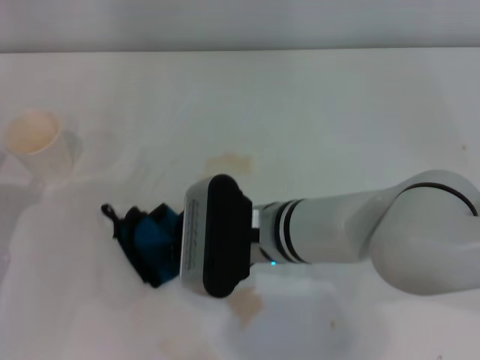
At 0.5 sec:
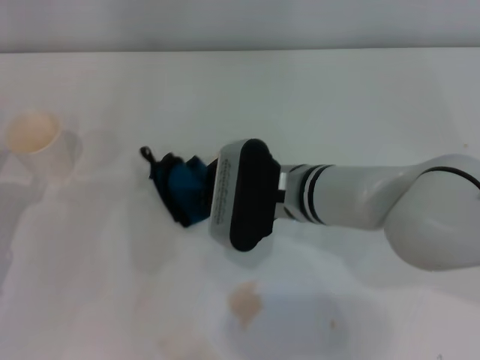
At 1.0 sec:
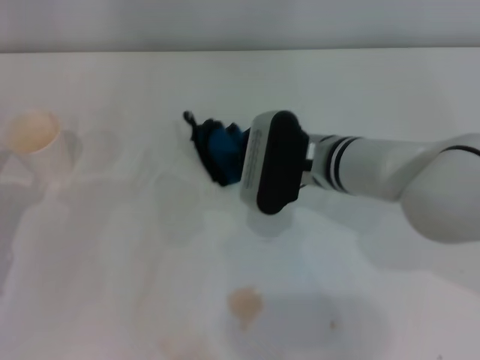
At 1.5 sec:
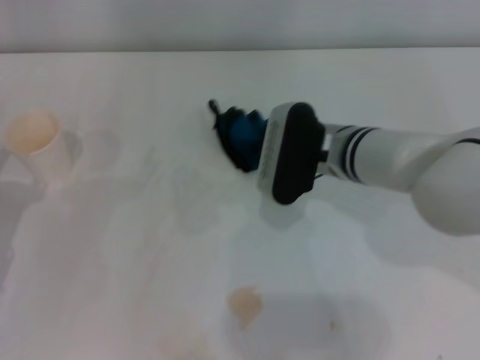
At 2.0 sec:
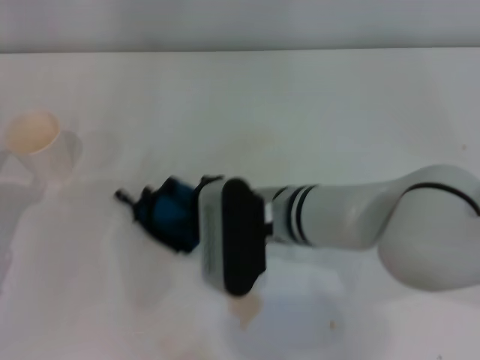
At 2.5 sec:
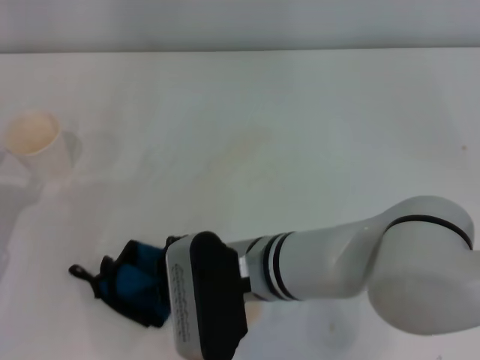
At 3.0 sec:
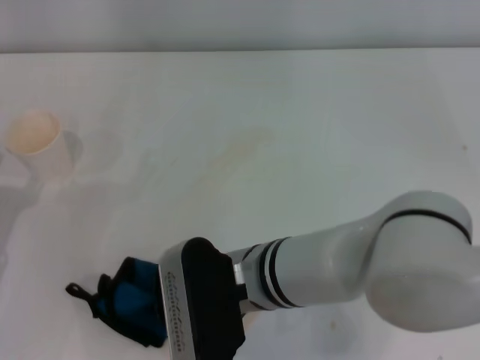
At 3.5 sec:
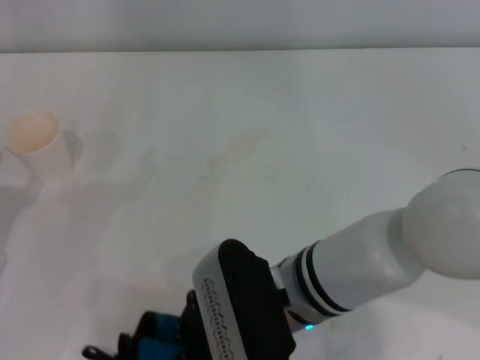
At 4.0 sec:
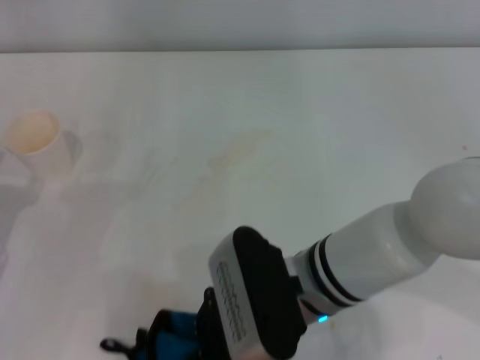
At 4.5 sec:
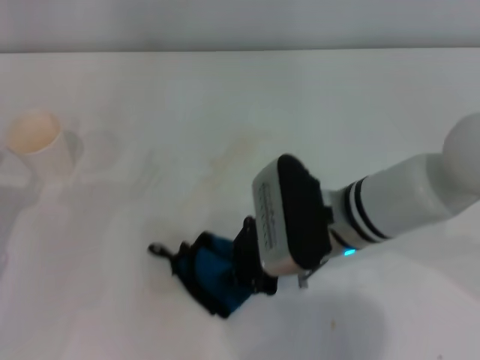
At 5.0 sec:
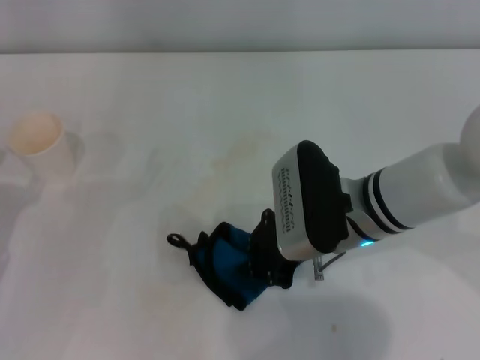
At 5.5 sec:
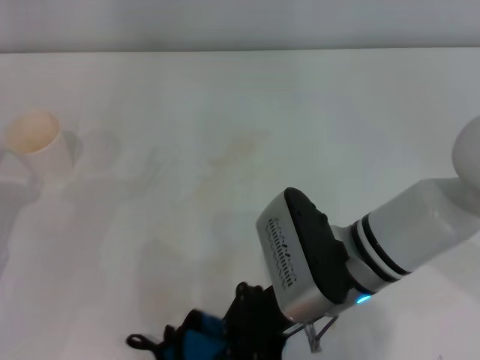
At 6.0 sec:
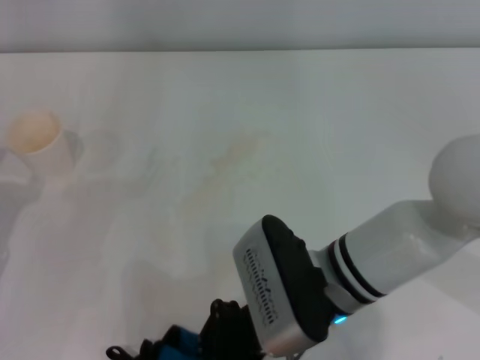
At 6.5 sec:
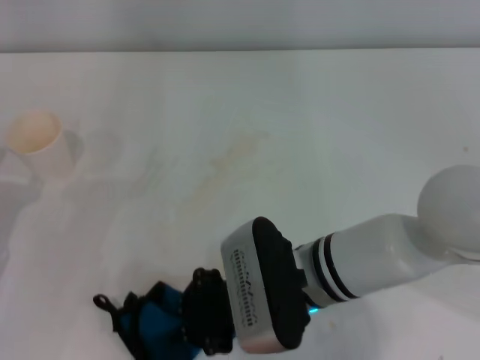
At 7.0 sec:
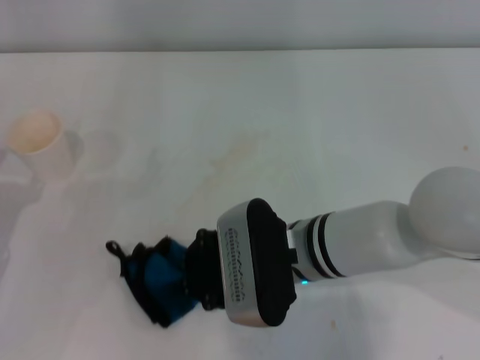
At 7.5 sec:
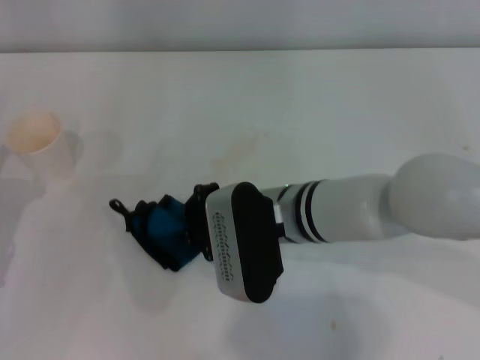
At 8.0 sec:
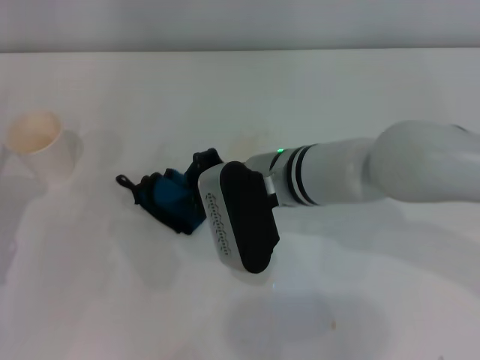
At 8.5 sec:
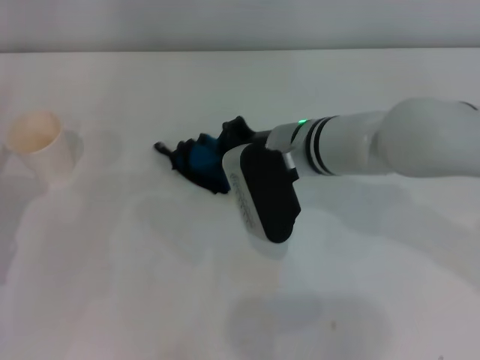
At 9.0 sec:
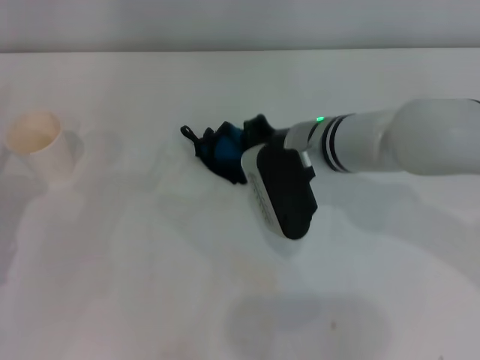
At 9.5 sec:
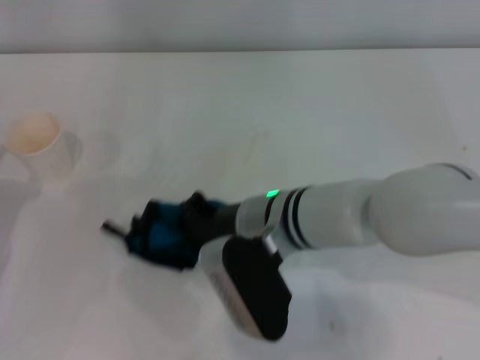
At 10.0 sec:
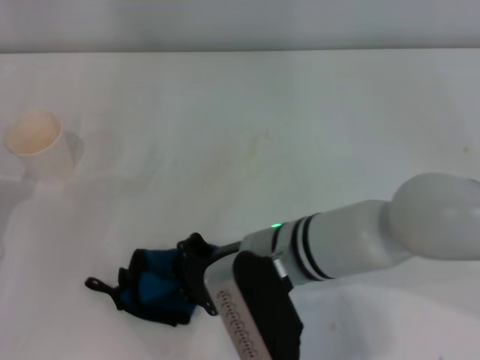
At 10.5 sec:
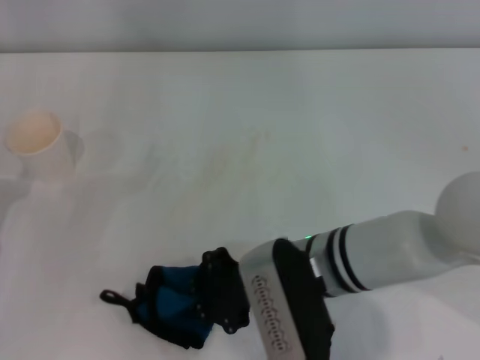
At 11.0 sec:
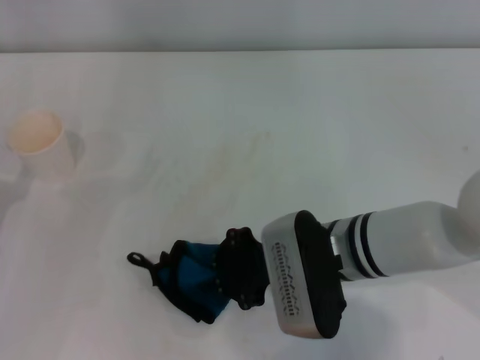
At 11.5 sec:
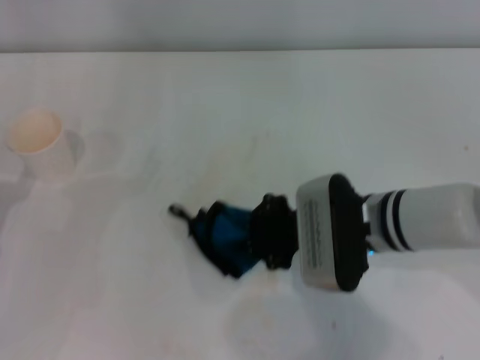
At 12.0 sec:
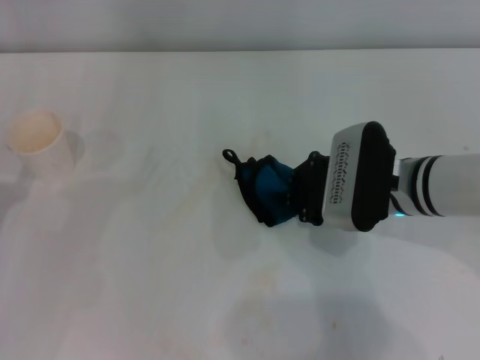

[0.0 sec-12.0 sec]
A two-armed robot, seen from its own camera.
0.0 sec to 2.0 sec: The right gripper travels forward and back again, approximately 10 cm each way.
2.0 sec to 4.0 sec: The right gripper is displaced backward by roughly 5 cm.
6.0 sec to 8.0 sec: The right gripper shifts about 10 cm forward.
8.0 sec to 10.0 sec: The right gripper moves backward, roughly 5 cm.
10.0 sec to 12.0 sec: The right gripper travels to the right and forward by approximately 15 cm.

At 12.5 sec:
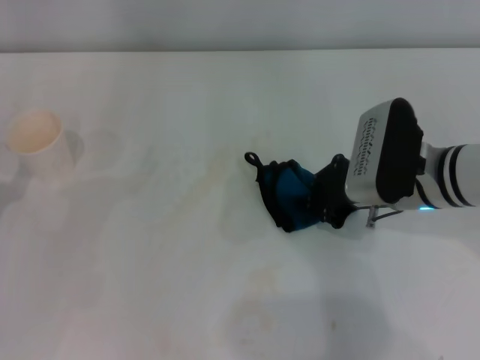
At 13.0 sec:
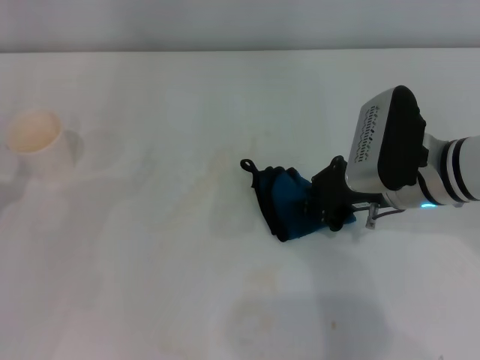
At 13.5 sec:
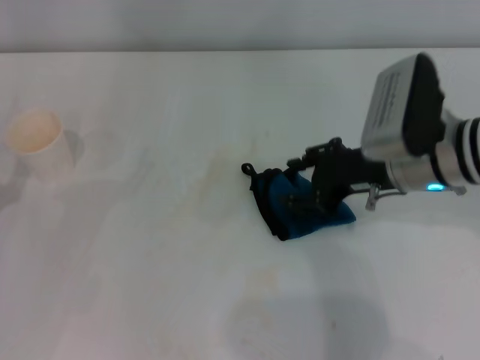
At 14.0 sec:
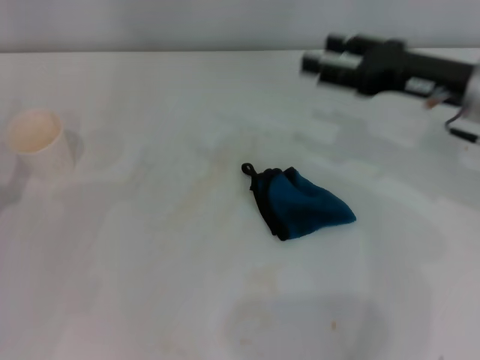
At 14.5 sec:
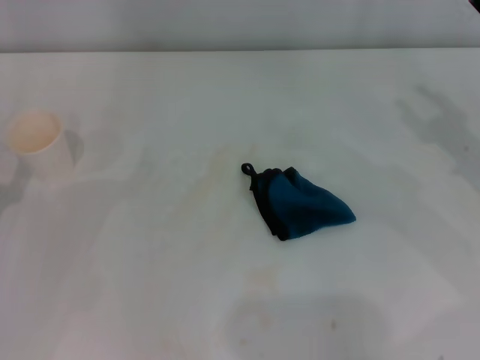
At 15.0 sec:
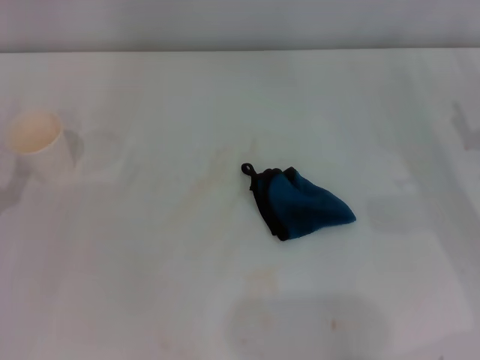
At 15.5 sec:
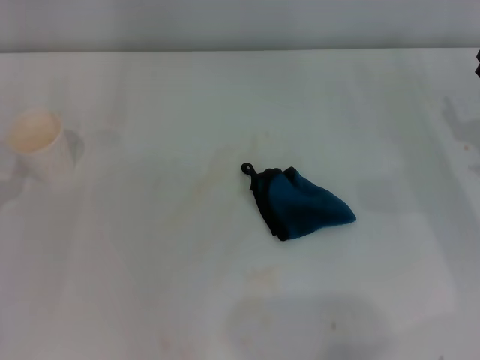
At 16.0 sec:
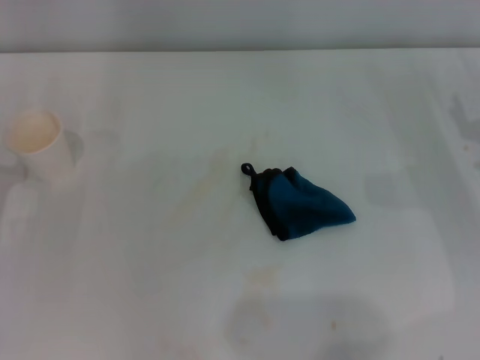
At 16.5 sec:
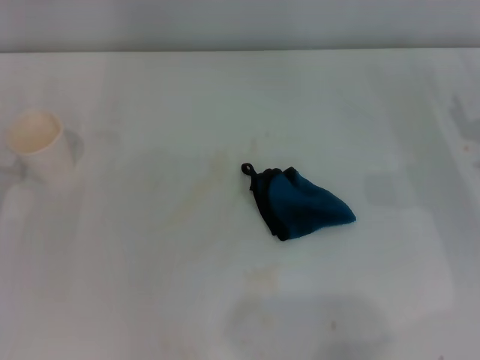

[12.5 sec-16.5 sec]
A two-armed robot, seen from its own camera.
Step, 12.5 sec to 13.0 sec: Place the rag on the table with the right gripper.
12.5 sec to 14.5 sec: The right gripper is displaced to the right by about 15 cm, and opens its fingers.
